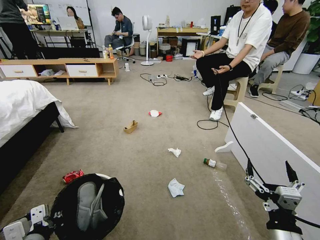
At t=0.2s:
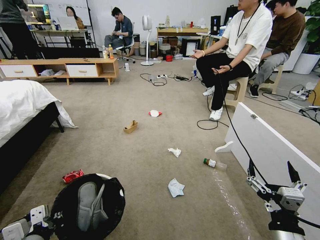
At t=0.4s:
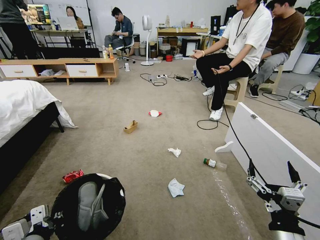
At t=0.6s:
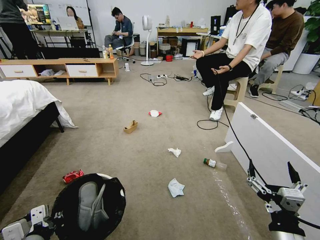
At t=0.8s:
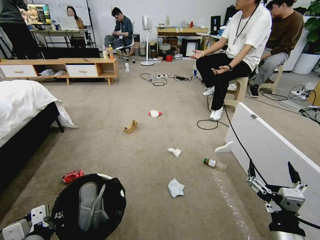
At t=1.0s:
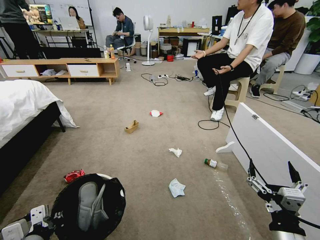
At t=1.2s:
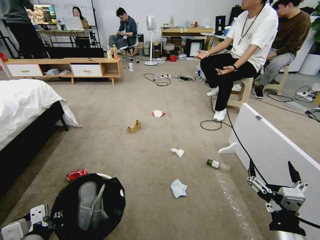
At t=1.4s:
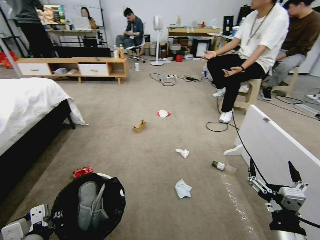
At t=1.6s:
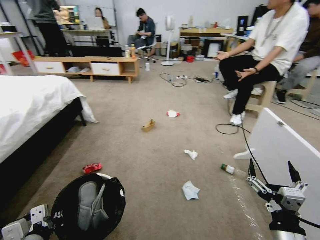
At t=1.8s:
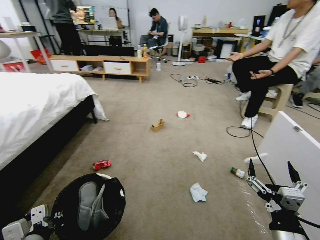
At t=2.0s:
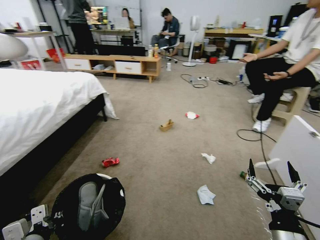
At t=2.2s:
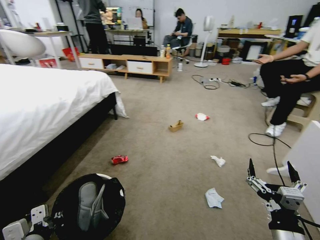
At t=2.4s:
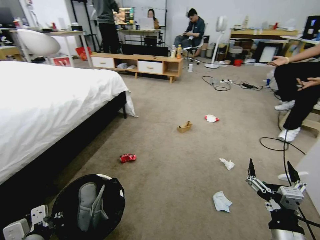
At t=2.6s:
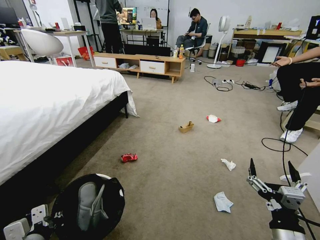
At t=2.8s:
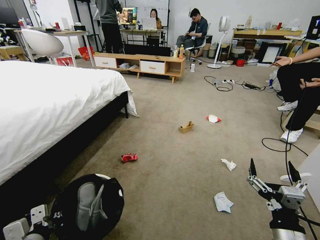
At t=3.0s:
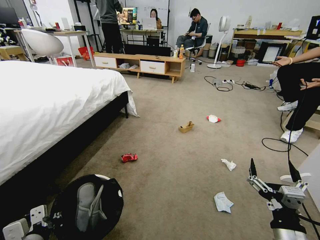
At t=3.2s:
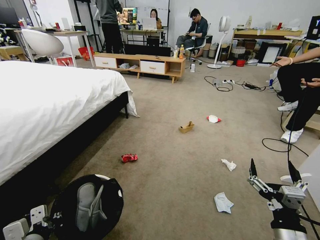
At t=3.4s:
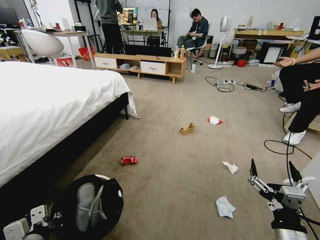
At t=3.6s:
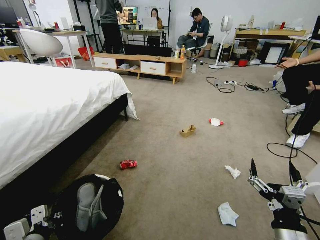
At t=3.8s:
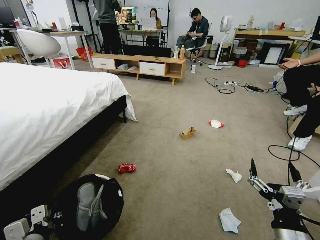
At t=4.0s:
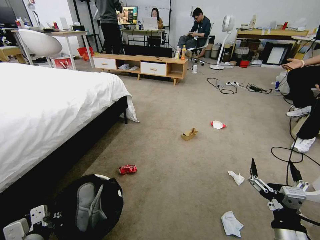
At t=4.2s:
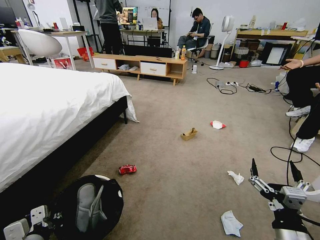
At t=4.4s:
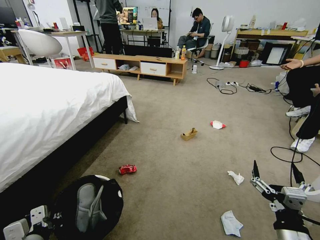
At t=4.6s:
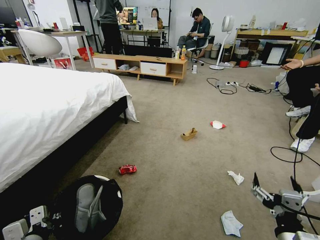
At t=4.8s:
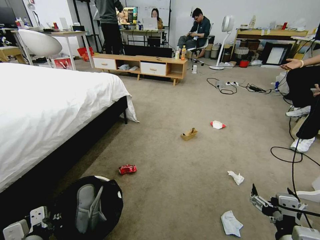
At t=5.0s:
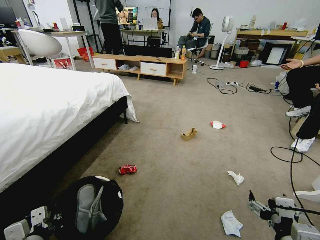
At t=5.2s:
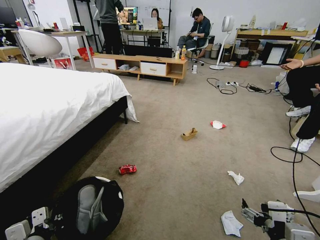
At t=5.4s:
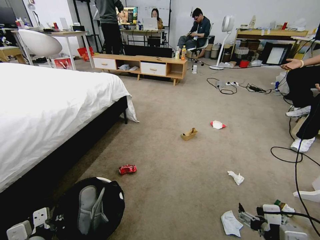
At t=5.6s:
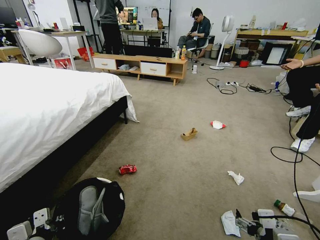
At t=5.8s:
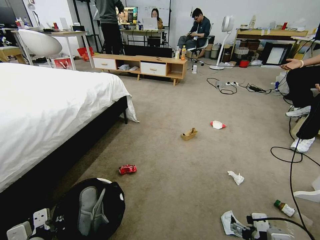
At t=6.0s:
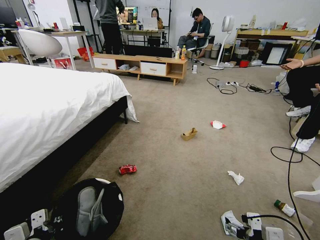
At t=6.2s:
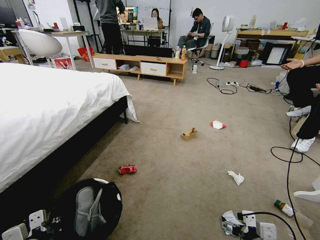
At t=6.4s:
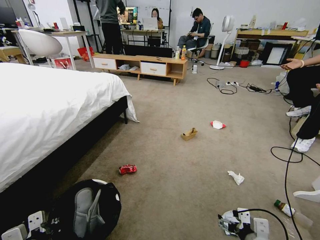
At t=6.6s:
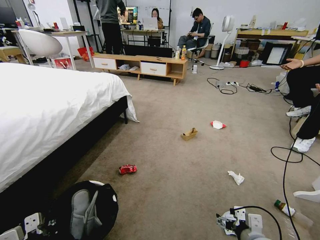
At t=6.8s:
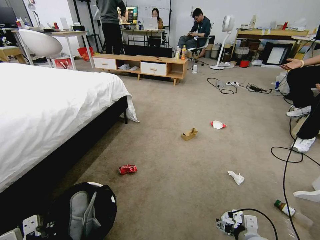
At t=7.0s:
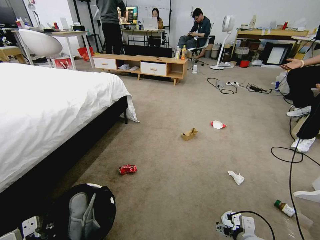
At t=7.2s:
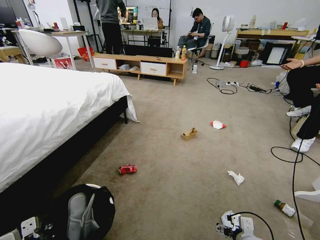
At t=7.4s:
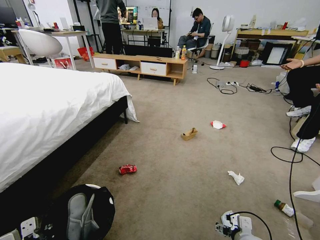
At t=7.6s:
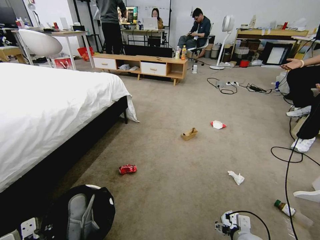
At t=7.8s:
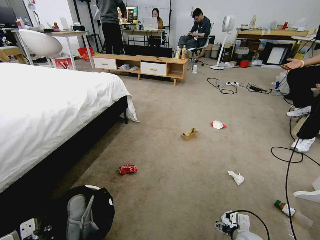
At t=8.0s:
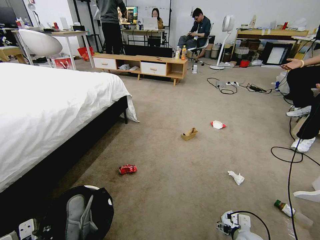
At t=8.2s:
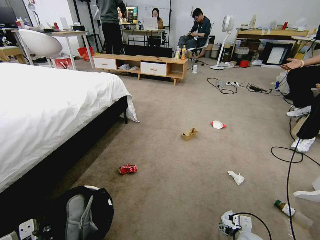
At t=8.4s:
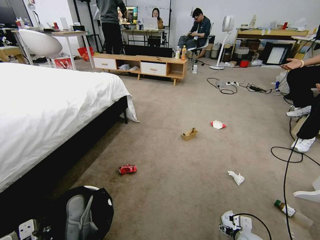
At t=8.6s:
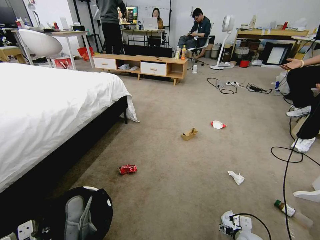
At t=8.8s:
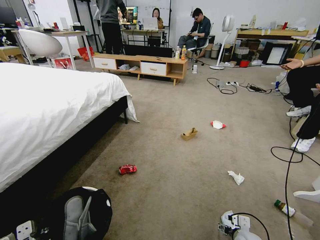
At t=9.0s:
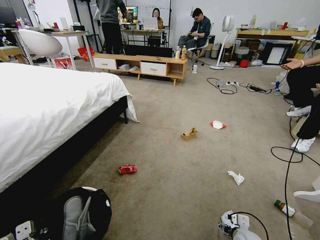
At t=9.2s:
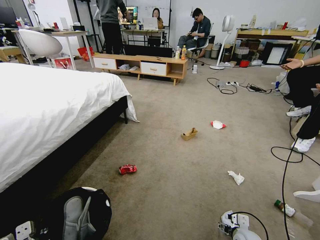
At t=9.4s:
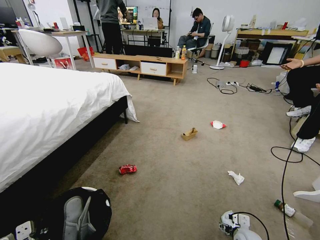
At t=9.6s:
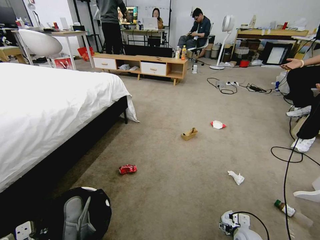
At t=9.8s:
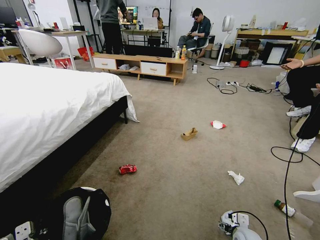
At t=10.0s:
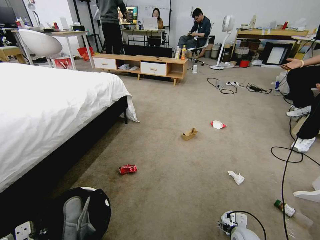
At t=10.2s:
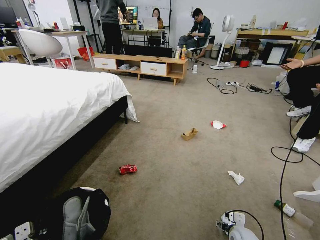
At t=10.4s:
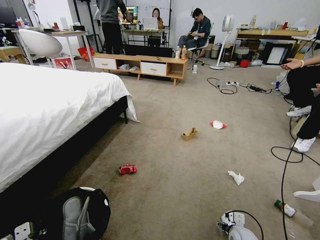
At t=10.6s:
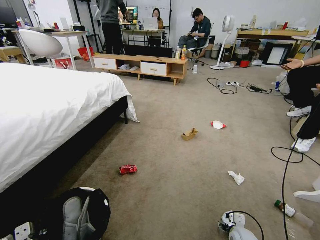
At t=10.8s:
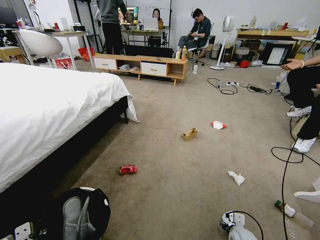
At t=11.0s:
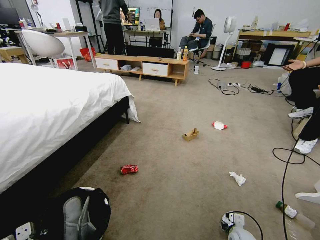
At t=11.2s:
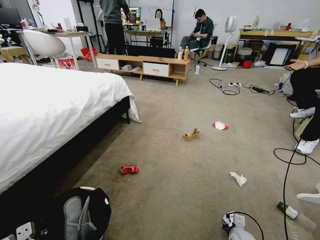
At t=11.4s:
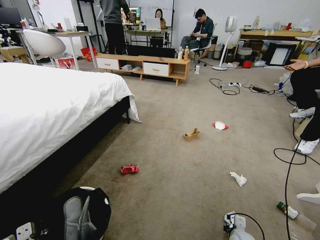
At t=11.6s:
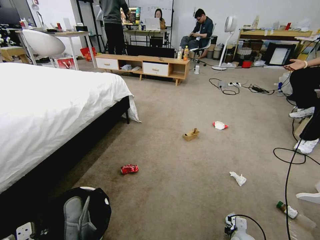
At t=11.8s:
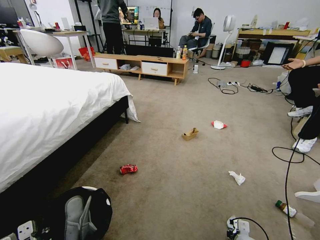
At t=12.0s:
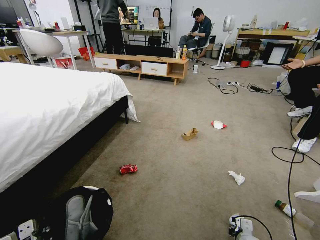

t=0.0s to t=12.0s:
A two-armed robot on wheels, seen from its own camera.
Task of the whole recording: Pick up the trash bin and place the garbage on the floor into it.
t=6.0s to t=7.6s: The right gripper goes roughly 20 cm downward and forward.
t=7.6s to t=9.0s: The right gripper ends up approximately 5 cm from where it was.
t=9.0s to t=10.4s: The grippers make only small movements.
t=10.4s to t=12.0s: The right gripper closes.

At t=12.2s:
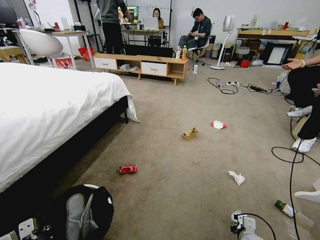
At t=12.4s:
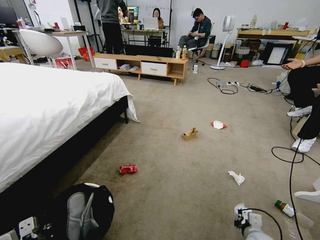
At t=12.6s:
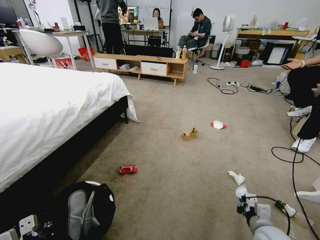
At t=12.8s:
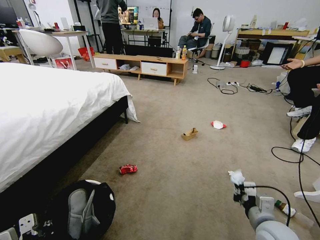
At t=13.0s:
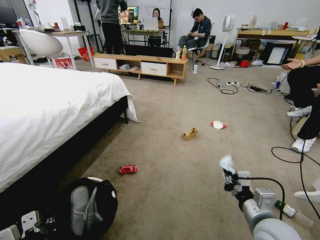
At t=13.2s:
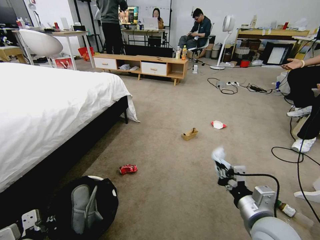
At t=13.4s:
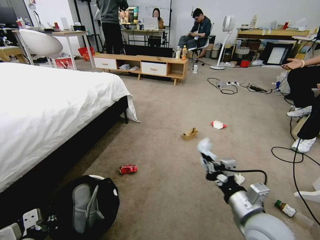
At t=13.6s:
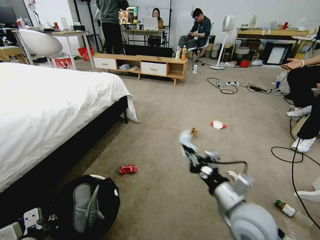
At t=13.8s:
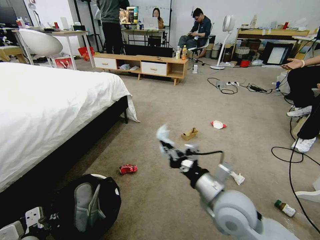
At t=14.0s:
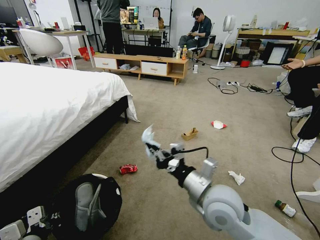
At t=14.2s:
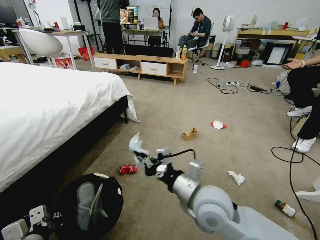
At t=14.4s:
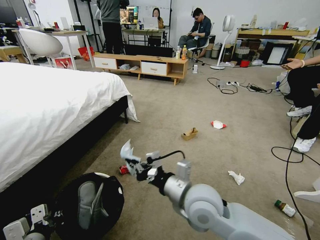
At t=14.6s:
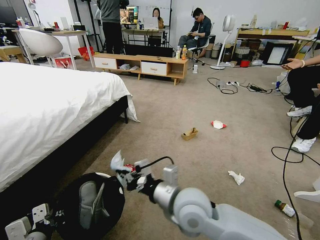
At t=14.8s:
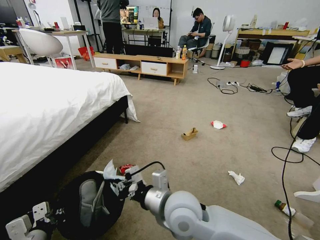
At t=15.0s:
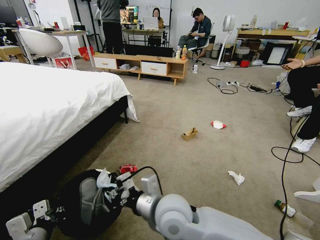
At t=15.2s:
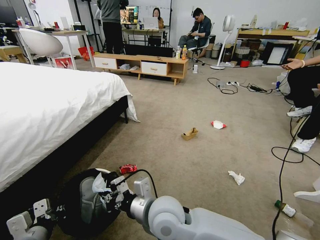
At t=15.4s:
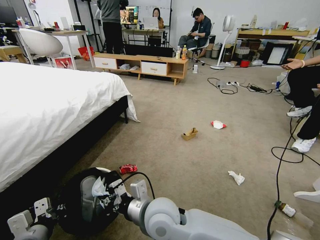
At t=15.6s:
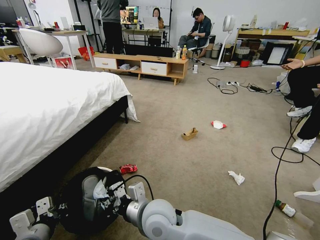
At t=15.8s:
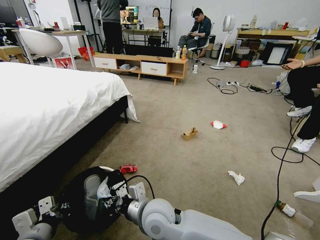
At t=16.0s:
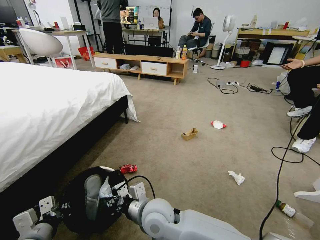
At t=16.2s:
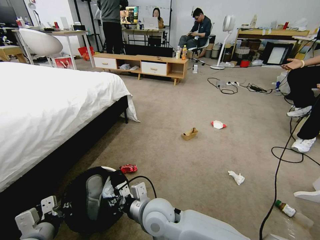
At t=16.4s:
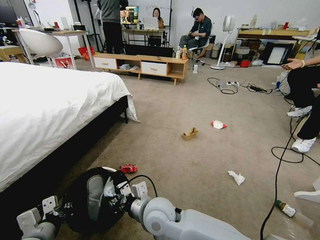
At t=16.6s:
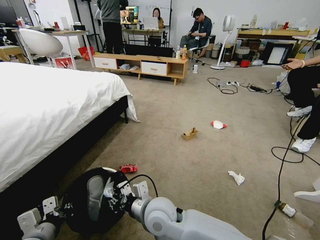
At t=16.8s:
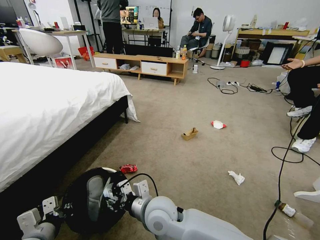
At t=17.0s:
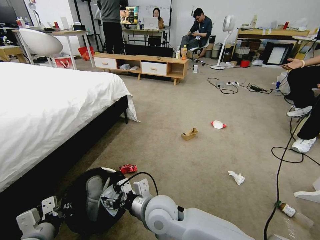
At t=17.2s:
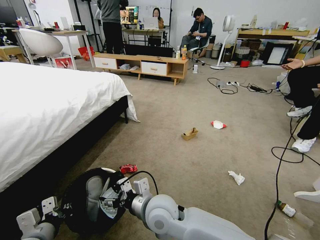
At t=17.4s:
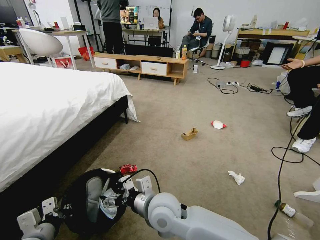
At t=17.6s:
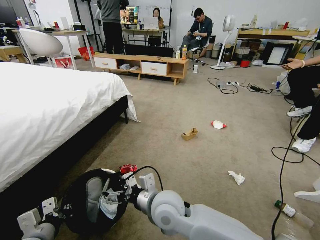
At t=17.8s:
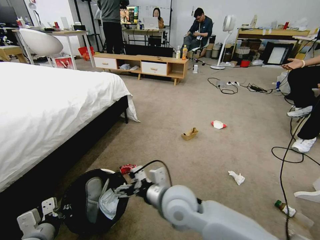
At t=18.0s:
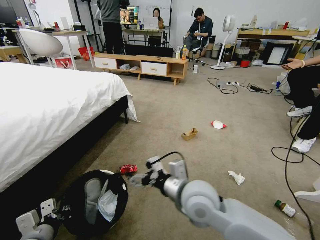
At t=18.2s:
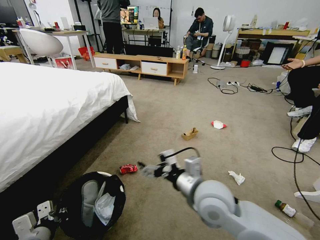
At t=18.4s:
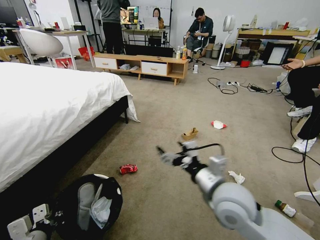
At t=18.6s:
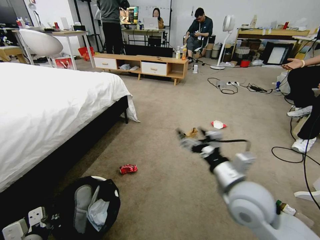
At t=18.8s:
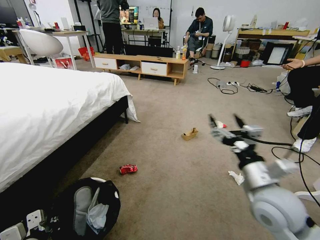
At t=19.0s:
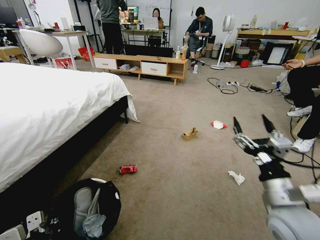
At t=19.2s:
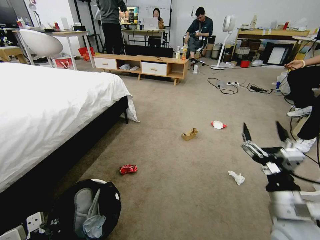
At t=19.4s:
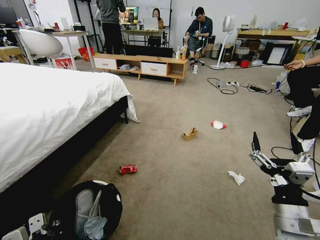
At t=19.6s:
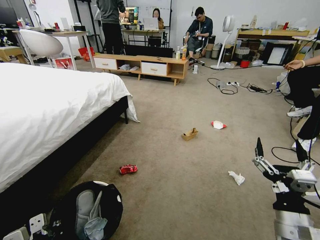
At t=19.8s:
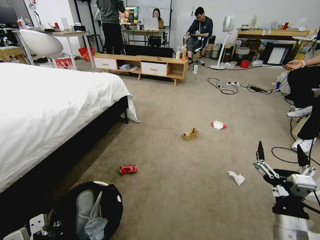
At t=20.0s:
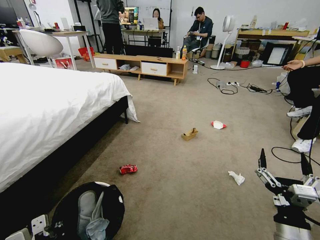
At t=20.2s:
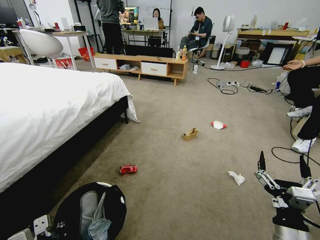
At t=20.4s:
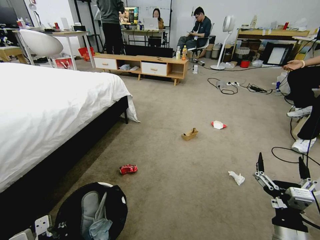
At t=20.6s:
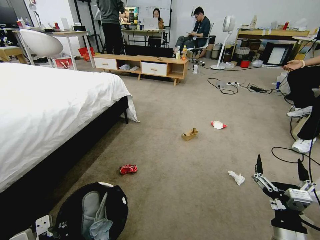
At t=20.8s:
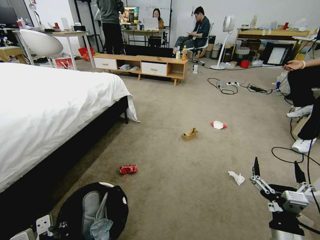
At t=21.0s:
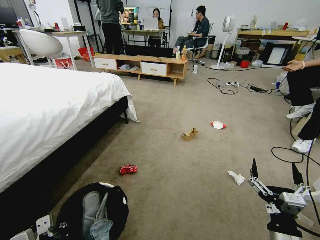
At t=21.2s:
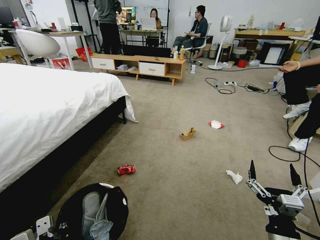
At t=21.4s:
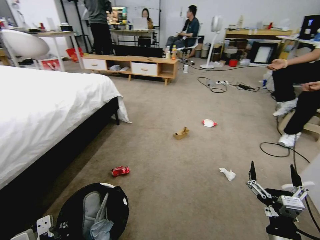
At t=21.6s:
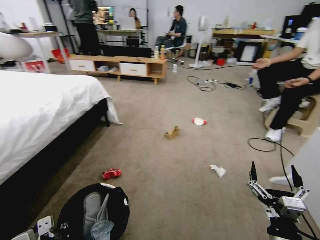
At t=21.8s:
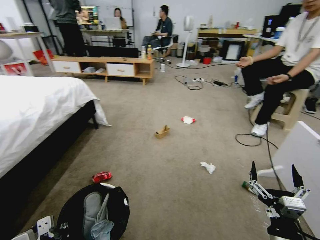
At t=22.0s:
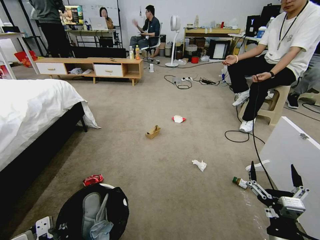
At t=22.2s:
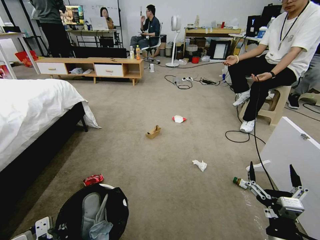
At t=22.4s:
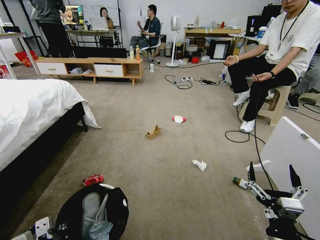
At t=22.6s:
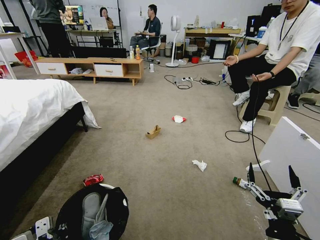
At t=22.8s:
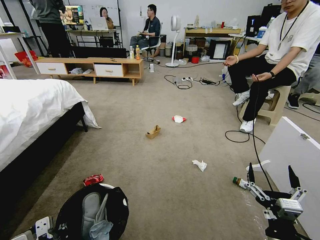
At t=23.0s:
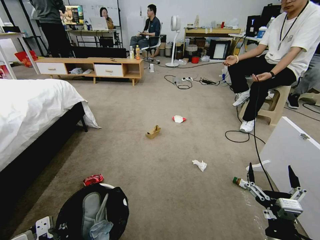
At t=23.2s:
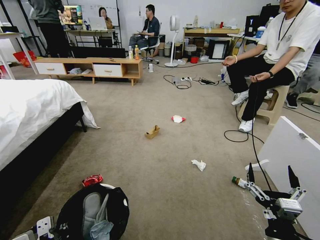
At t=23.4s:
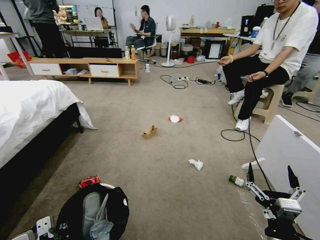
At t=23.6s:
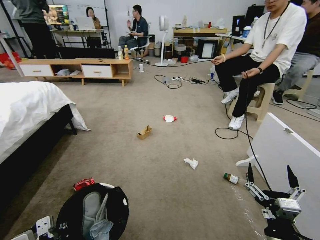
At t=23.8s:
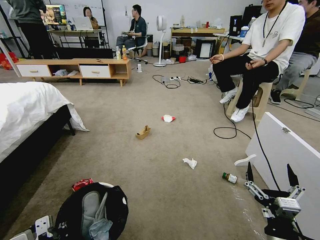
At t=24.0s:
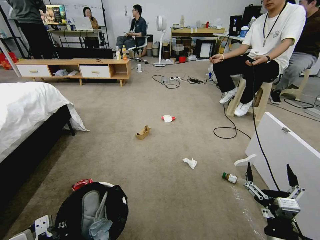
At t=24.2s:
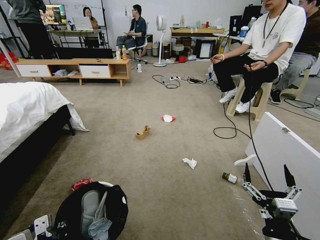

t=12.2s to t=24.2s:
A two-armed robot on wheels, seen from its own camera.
Task of the whole recording: Pick up the trash bin and place the garbage on the floor into it.
t=12.2s to t=13.8s: The right gripper travels upward and to the left by approximately 30 cm.
t=13.8s to t=15.2s: The right gripper goes roughly 15 cm to the left.
t=15.2s to t=16.6s: The right gripper shifts by about 5 cm.
t=16.6s to t=18.2s: The right gripper is displaced to the right and upward by some 15 cm, and opens up.
t=18.2s to t=19.8s: The right gripper shifts roughly 20 cm to the right, backward and downward.
t=19.8s to t=21.2s: The right gripper shifts by approximately 5 cm.
